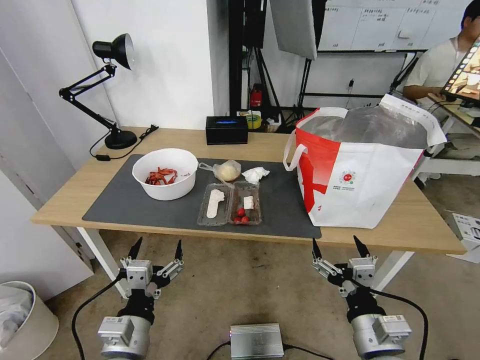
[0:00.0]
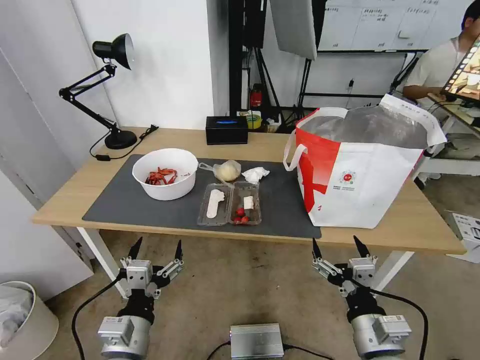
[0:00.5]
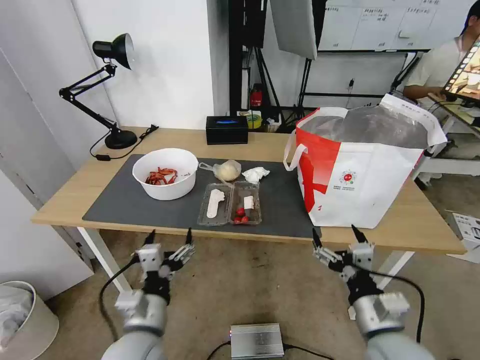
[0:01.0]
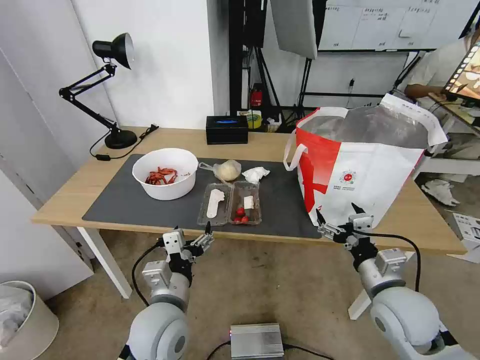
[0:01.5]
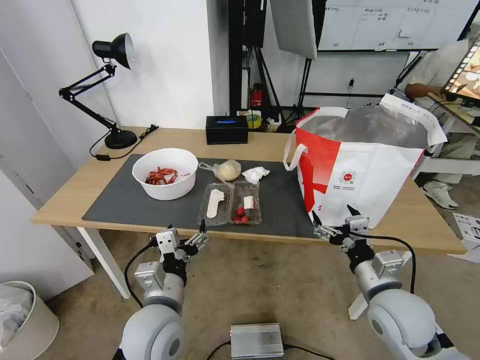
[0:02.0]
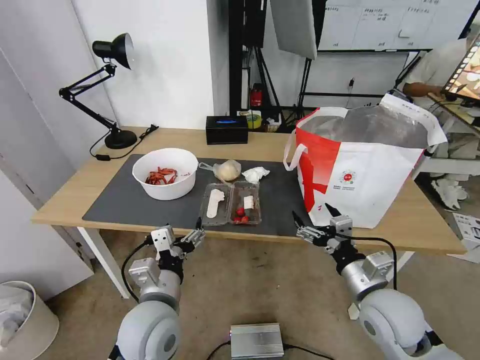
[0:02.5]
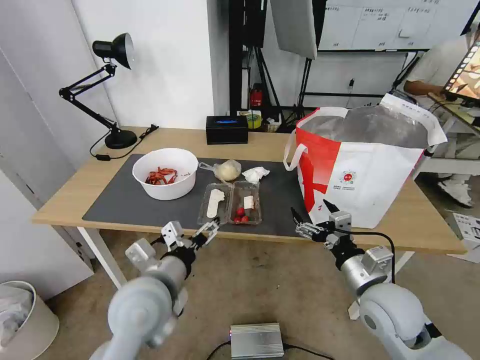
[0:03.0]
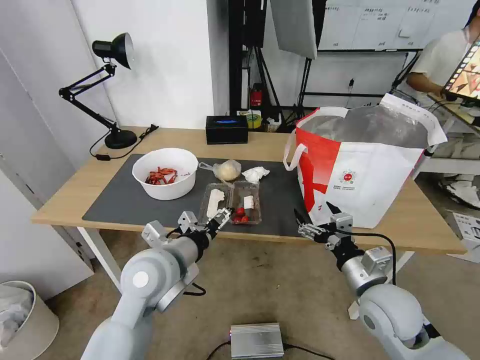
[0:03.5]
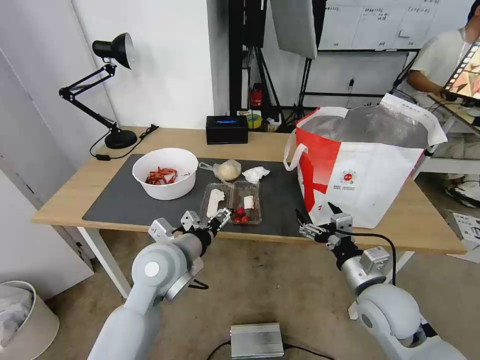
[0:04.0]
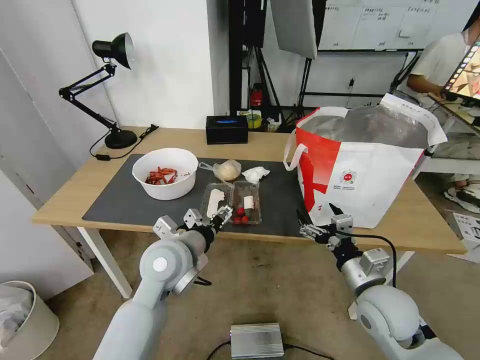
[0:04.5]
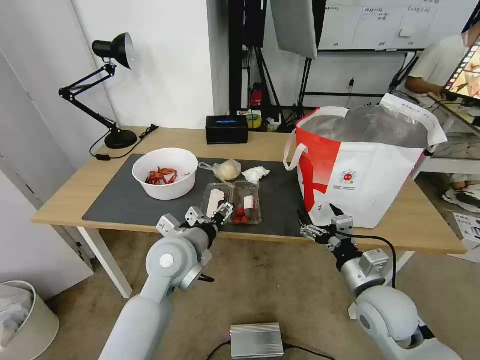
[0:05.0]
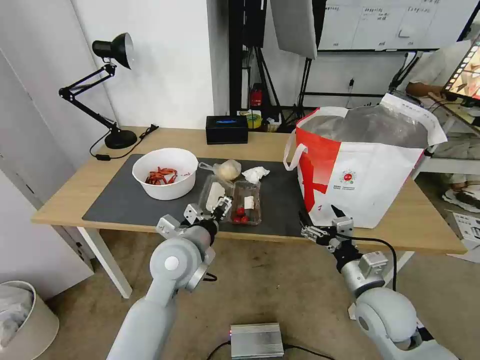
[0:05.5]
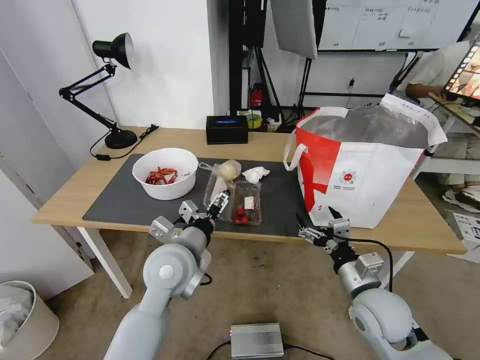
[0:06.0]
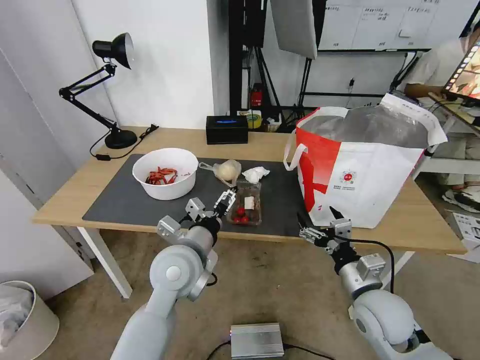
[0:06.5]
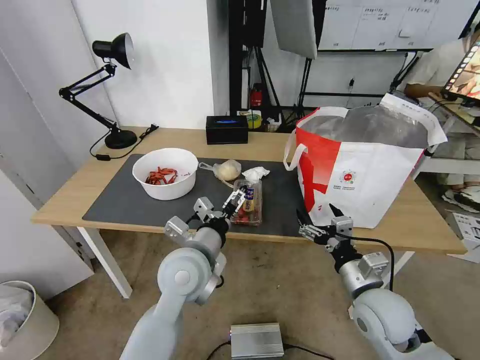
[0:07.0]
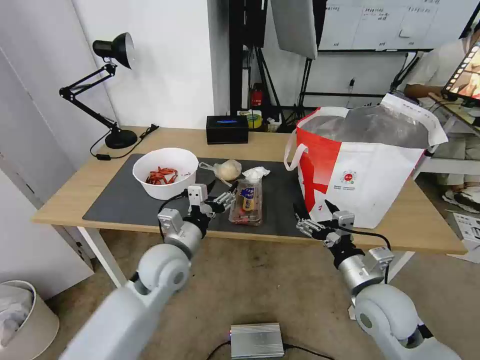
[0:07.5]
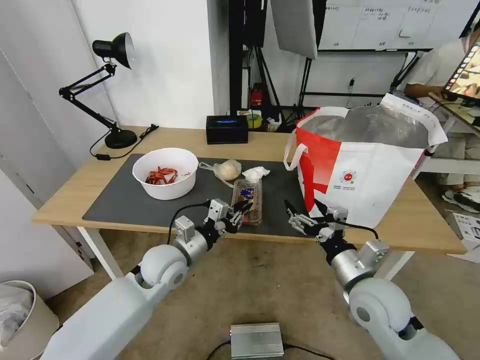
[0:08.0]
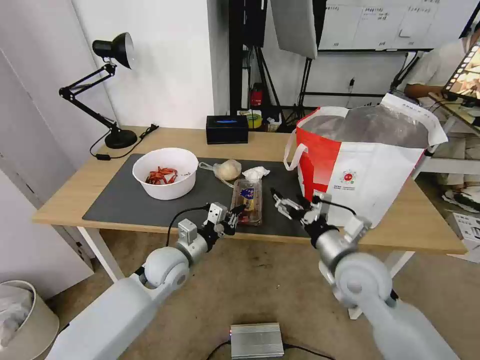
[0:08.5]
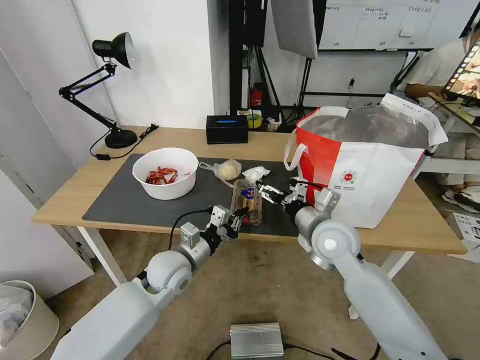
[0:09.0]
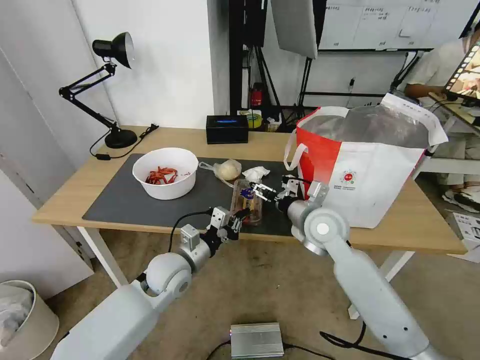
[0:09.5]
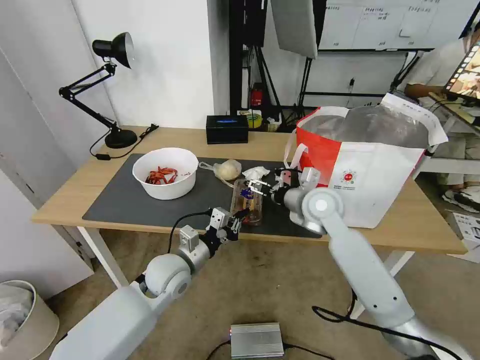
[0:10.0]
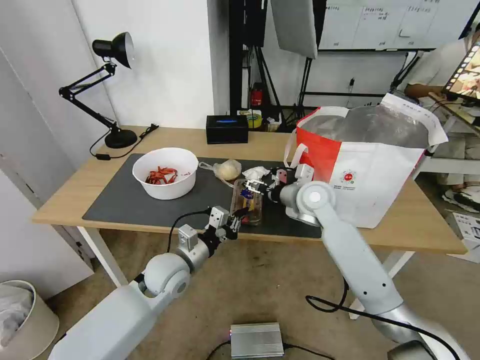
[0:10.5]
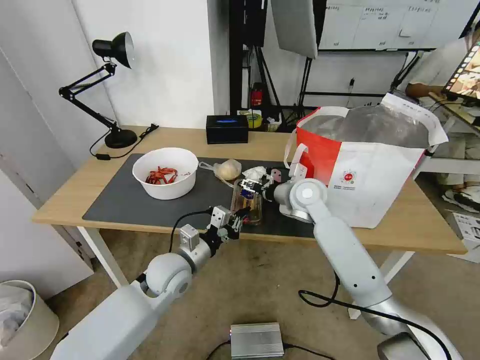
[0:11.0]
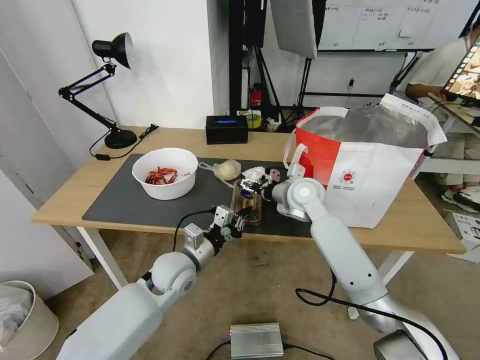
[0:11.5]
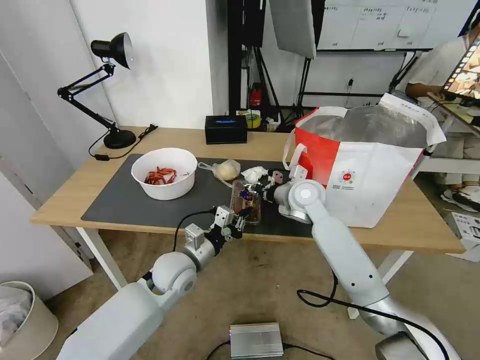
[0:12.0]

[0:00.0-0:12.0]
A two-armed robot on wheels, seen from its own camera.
Task of the whole recording: Pick up the trash from the table and place it into the takeout bag.
0:02.0 to 0:04.0: The left gripper is displaced forward and upward by some 10 cm.
0:04.0 to 0:06.0: The grippers move only a little.
0:06.0 to 0:08.0: The left gripper moves downward, roughly 10 cm, and closes up.
0:08.0 to 0:10.0: The right gripper goes some 20 cm forward.
0:10.0 to 0:12.0: The right gripper ends up approximately 5 cm from where it was, and closes its fingers.

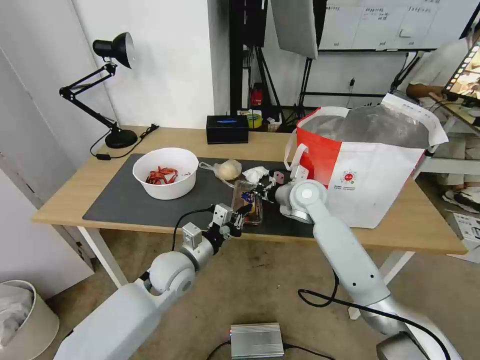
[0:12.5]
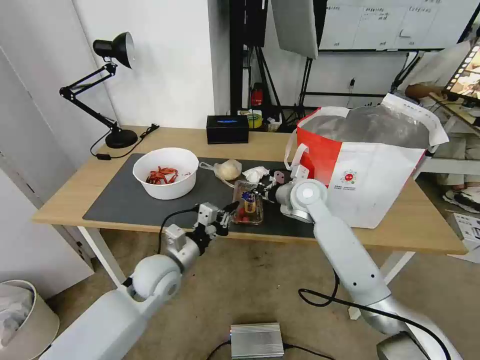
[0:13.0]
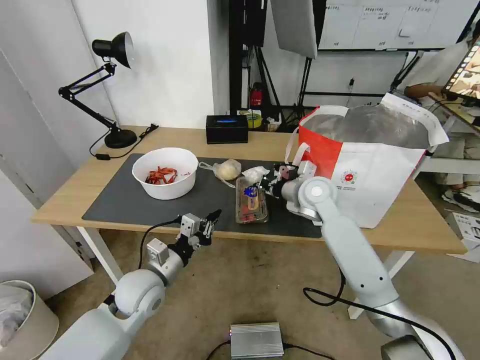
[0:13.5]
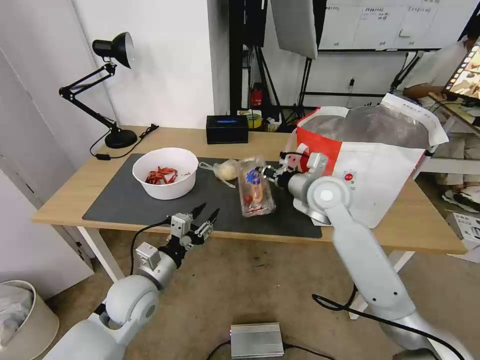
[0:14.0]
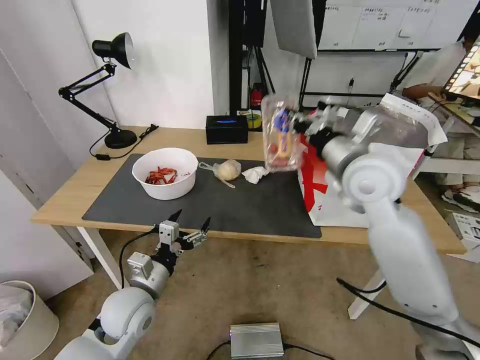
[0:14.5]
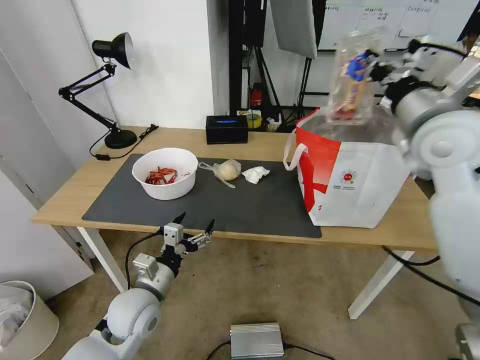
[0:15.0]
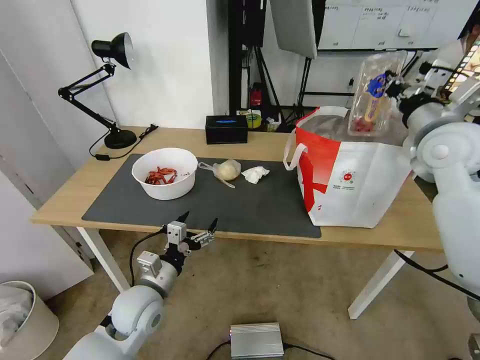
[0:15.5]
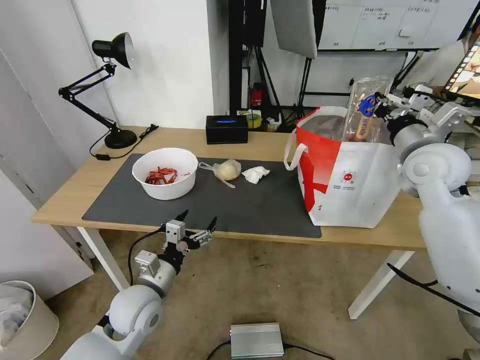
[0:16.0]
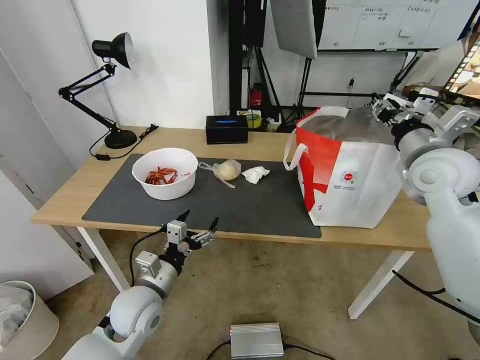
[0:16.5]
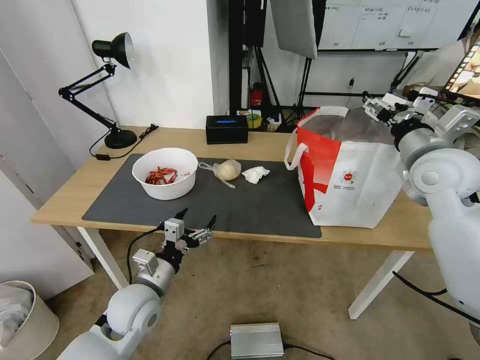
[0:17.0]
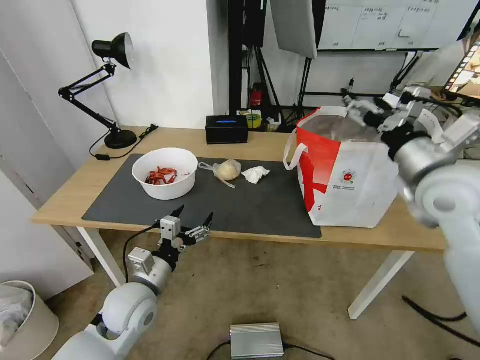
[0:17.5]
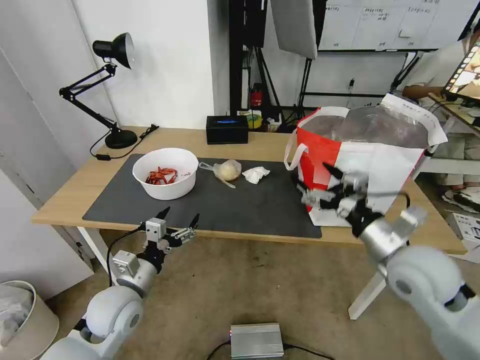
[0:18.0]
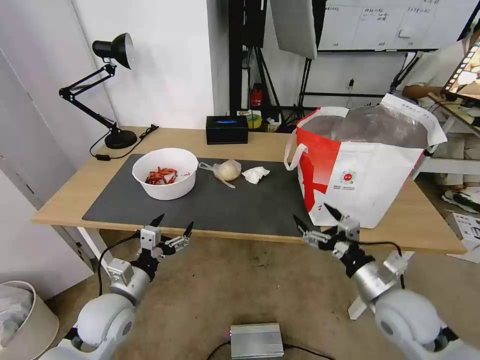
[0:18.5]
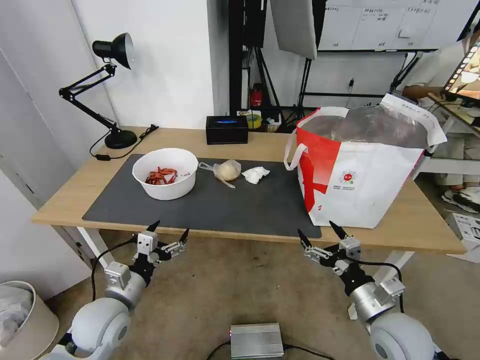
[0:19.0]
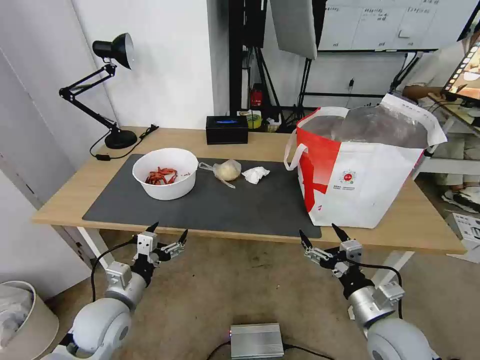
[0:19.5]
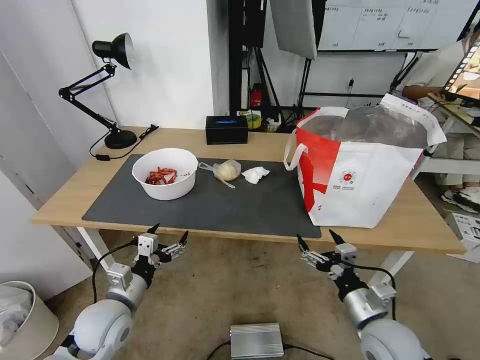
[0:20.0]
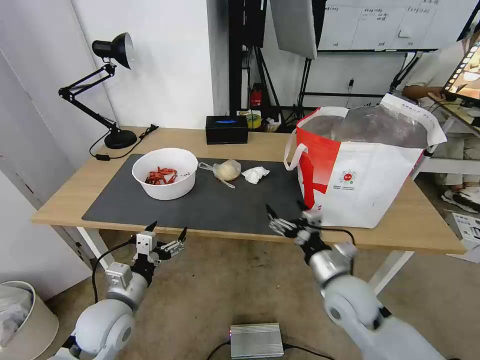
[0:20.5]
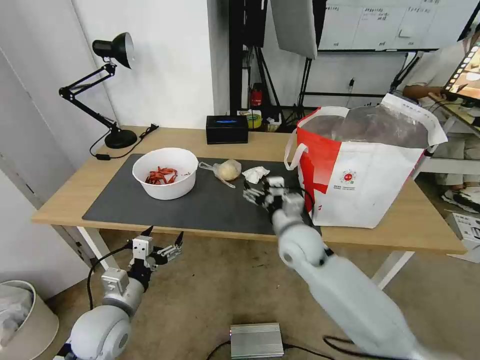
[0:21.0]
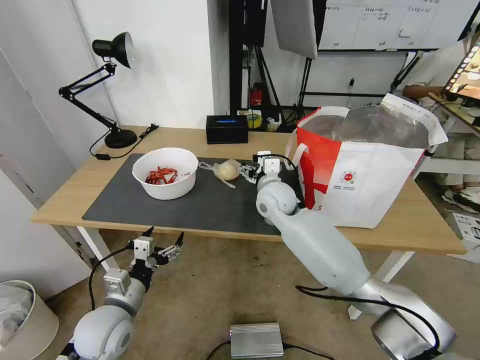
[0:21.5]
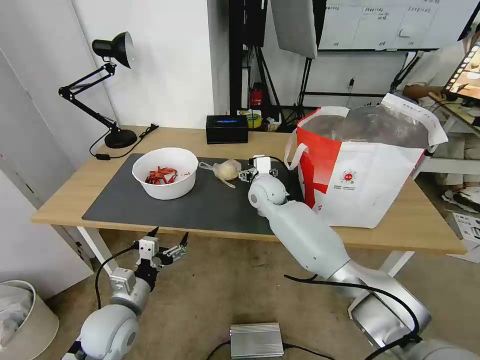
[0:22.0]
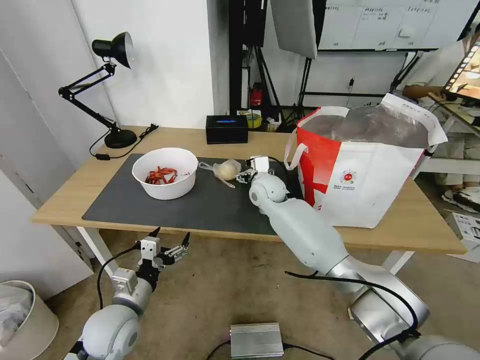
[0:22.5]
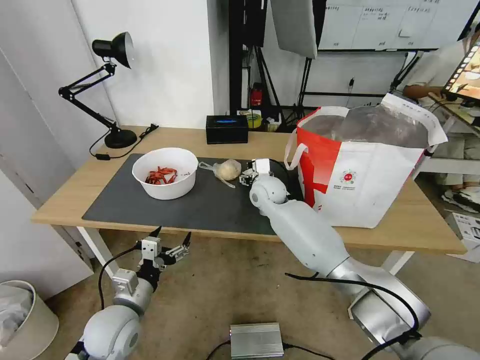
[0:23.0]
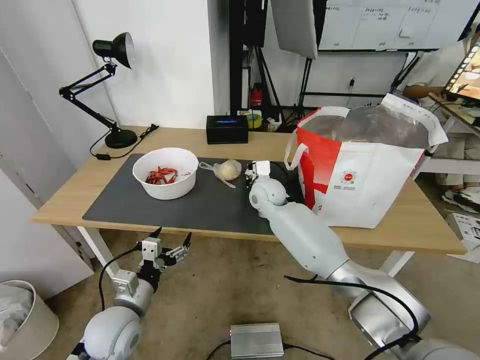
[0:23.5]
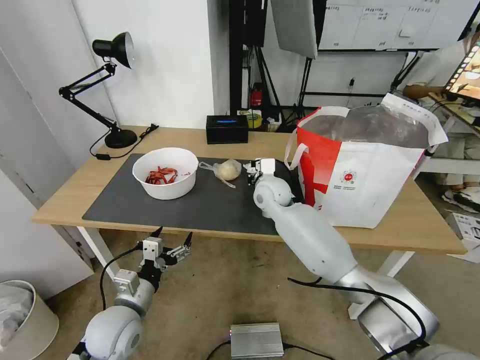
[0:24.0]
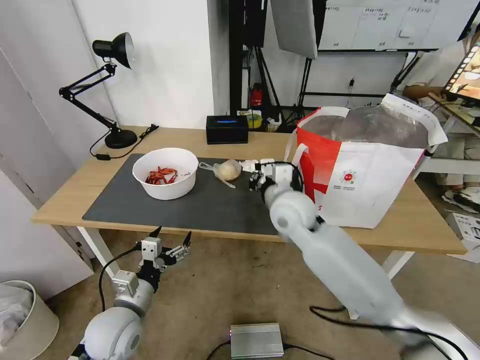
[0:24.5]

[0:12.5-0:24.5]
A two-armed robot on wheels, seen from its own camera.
Task of the whole recording: Pick up the trash from the table and place it into the takeout bag.
0:12.5 to 0:14.5: The left gripper heads backward and to the left, covering roughly 10 cm, and opens up. Meanwhile the right gripper is displaced upward and backward by roughly 20 cm.
0:14.5 to 0:16.5: The right gripper travels to the right by roughly 15 cm, and opens.
0:16.5 to 0:18.5: The left gripper moves to the left, about 5 cm. The right gripper goes roughly 30 cm downward and backward, and opens its fingers.
0:18.5 to 0:20.5: The right gripper moves to the left, roughly 10 cm.
0:20.5 to 0:22.5: The right gripper goes some 30 cm forward and to the left.
0:22.5 to 0:24.5: The right gripper moves backward and upward, about 15 cm, and closes up.

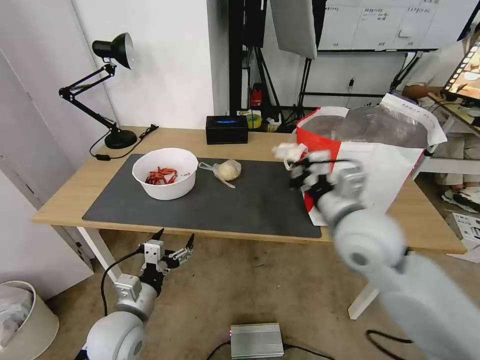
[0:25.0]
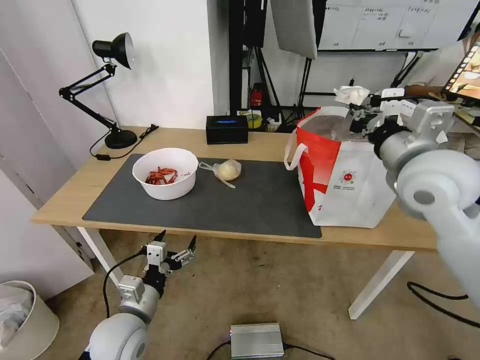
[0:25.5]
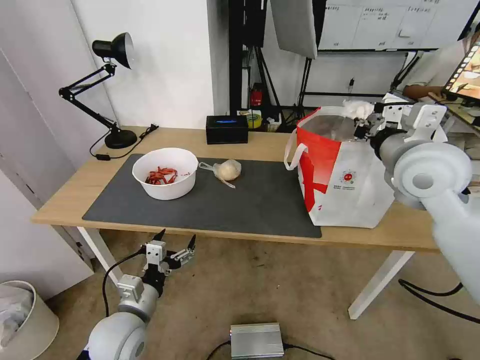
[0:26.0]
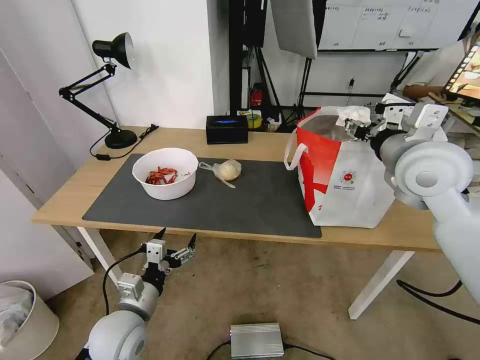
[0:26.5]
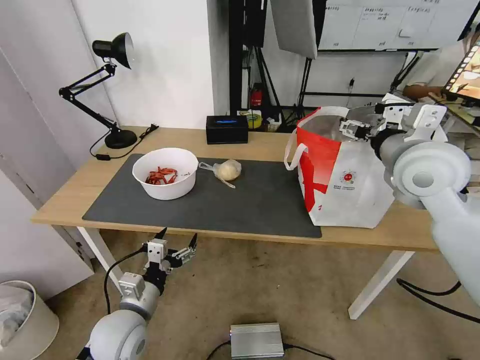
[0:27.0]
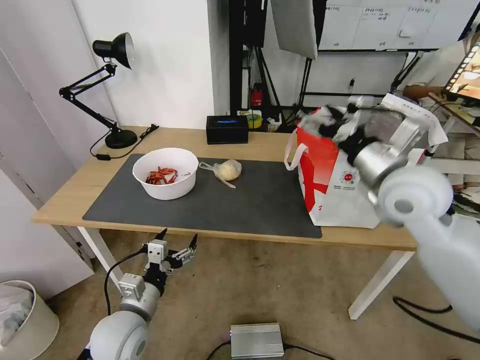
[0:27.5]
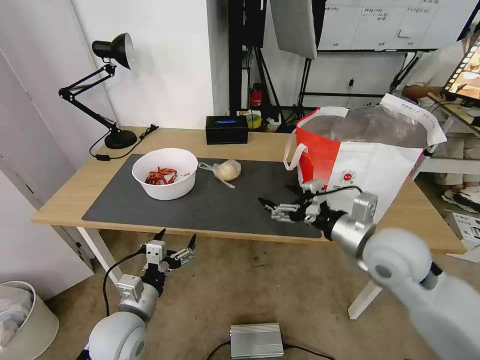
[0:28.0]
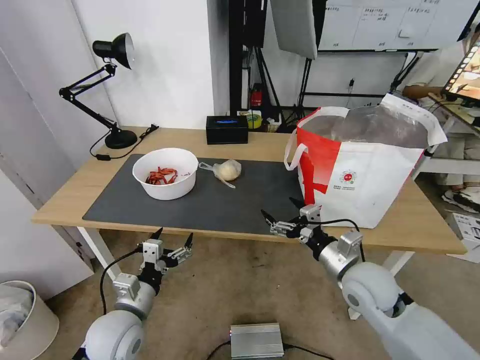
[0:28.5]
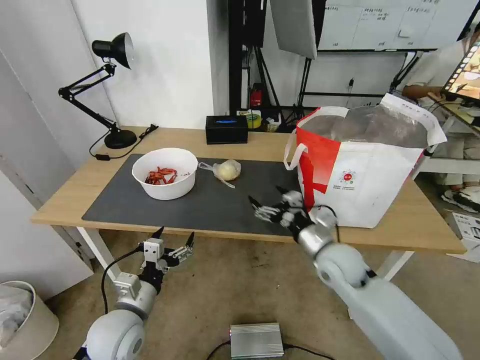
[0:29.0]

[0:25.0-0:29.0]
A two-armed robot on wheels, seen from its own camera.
Task of the whole recording: Pick up the trash from the table and place it into the takeout bag.
0:25.0 to 0:27.0: The right gripper is displaced to the right, forward and upward by some 15 cm, and opens up.
0:27.0 to 0:29.0: The right gripper heads downward, covering approximately 25 cm.
